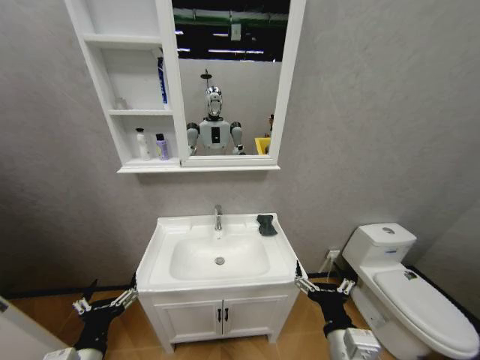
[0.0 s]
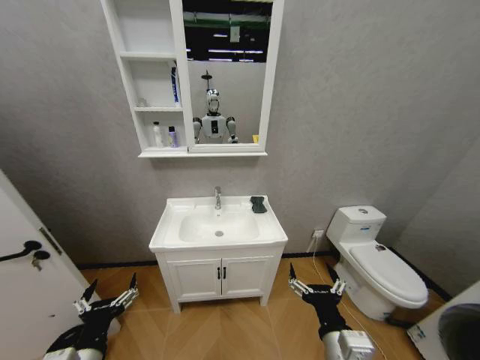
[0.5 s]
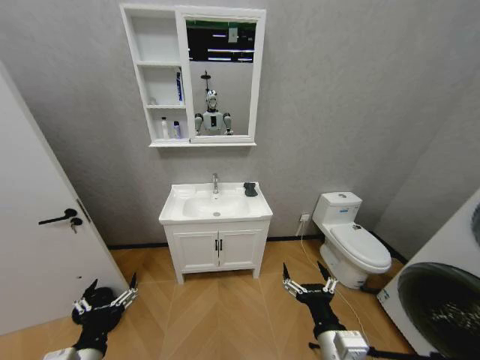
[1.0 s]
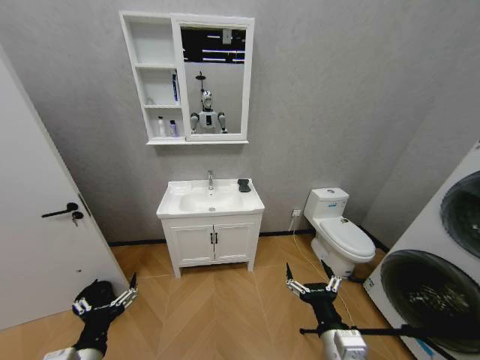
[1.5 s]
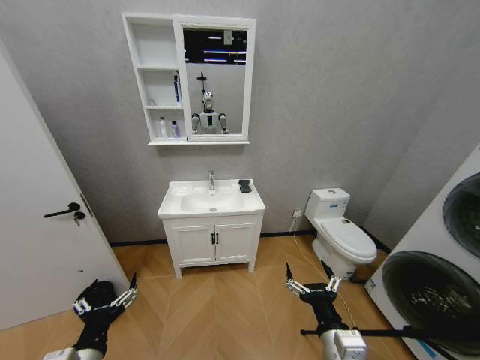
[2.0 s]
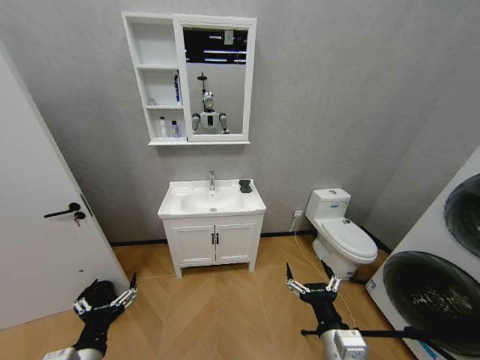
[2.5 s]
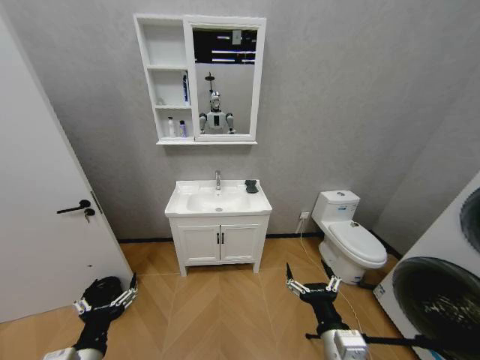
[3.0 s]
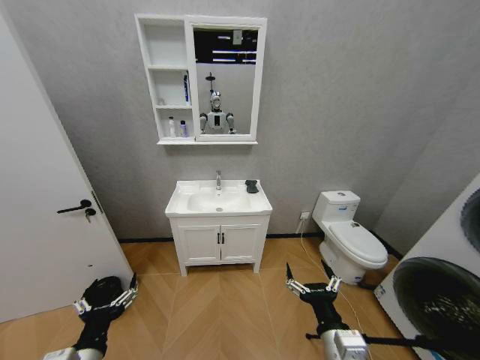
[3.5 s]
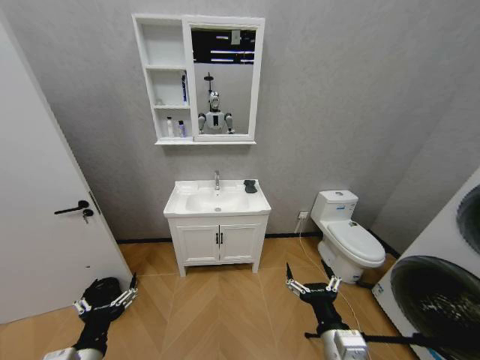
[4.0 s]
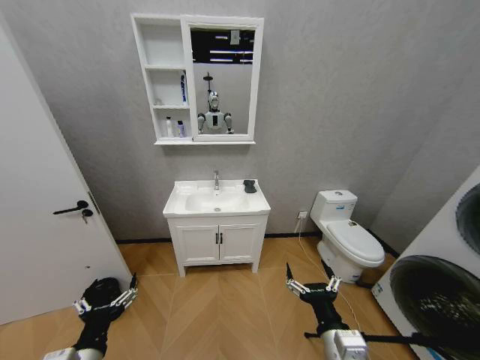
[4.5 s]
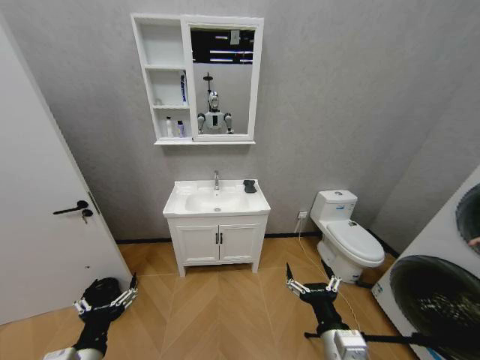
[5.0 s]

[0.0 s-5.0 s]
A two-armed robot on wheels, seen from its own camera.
Task of the whole recording: Move facial cleanser and shampoo from washbasin to cabinet, then wipe washbasin with towel.
2.5 to 5.0 s: The two grippers keep their place.

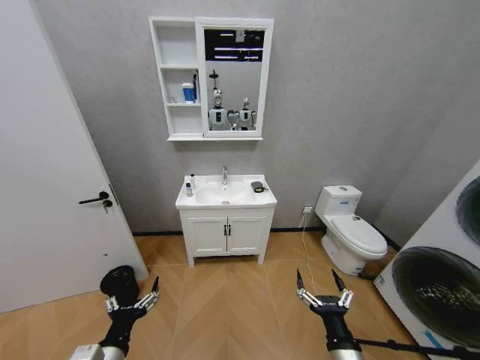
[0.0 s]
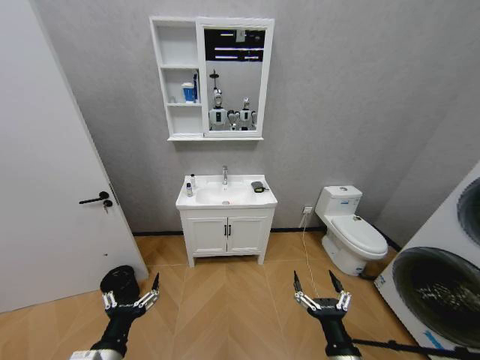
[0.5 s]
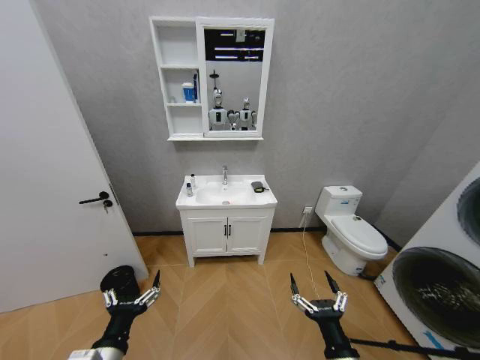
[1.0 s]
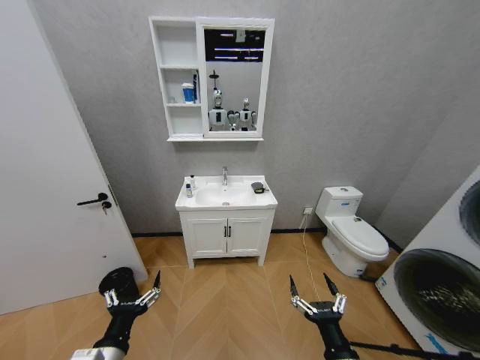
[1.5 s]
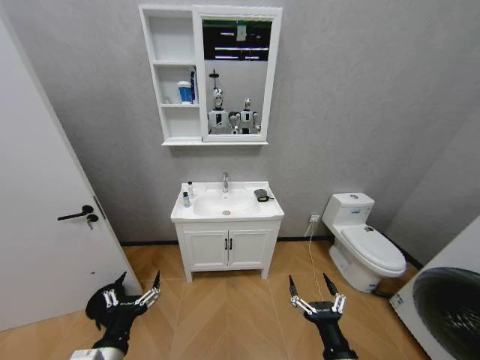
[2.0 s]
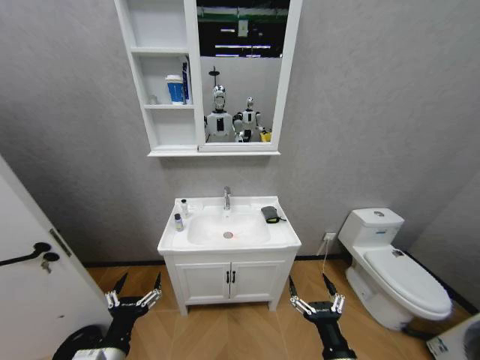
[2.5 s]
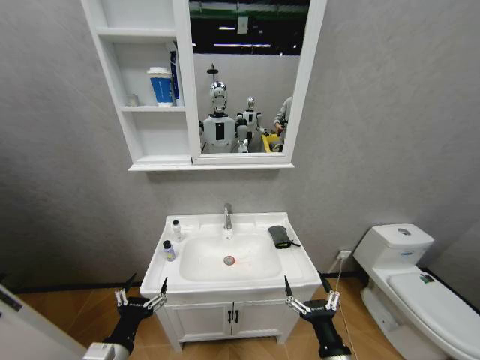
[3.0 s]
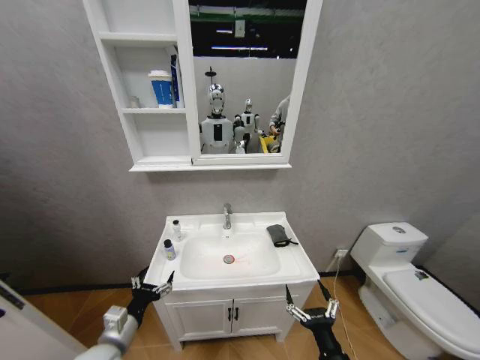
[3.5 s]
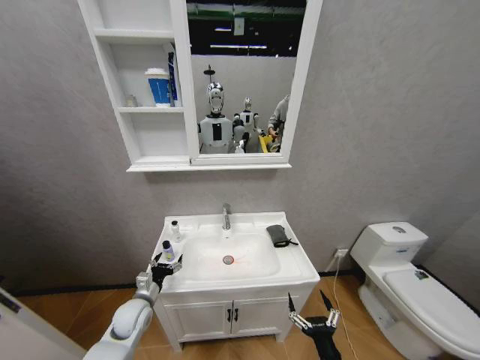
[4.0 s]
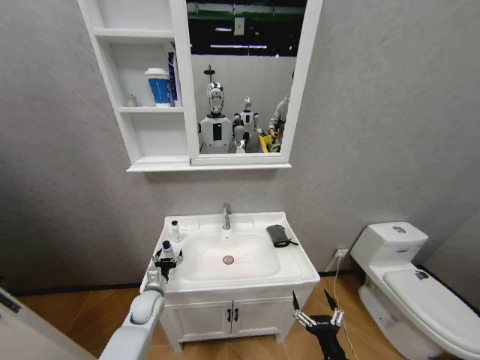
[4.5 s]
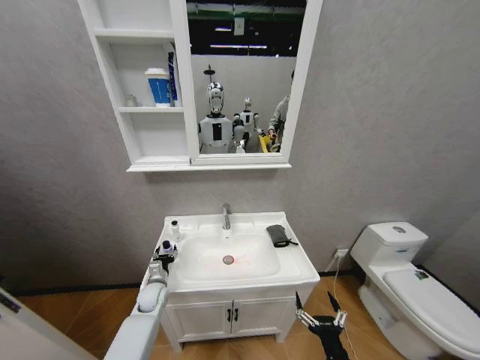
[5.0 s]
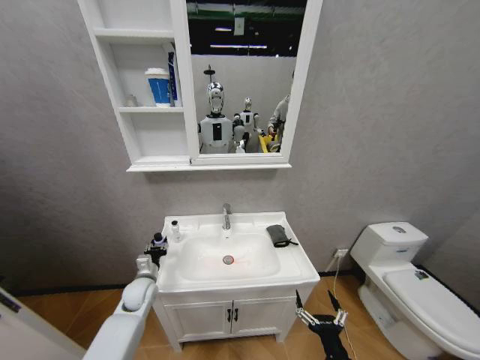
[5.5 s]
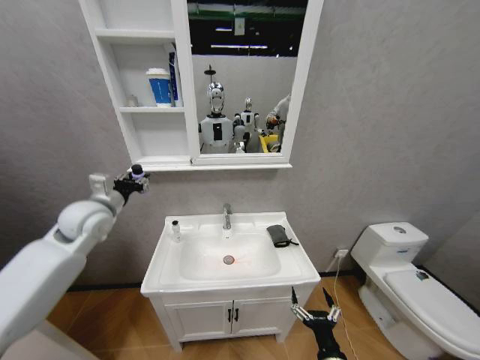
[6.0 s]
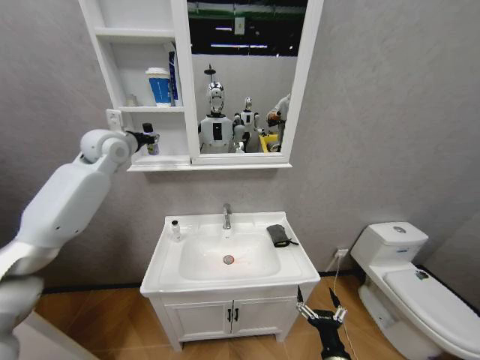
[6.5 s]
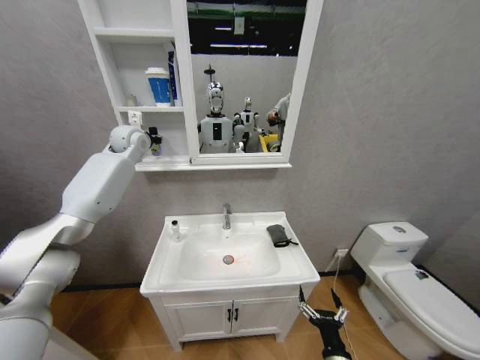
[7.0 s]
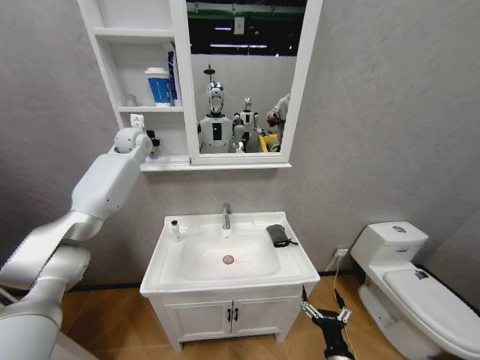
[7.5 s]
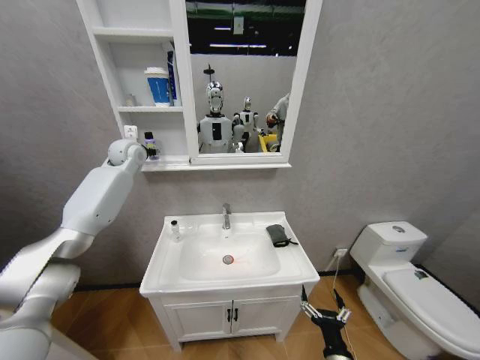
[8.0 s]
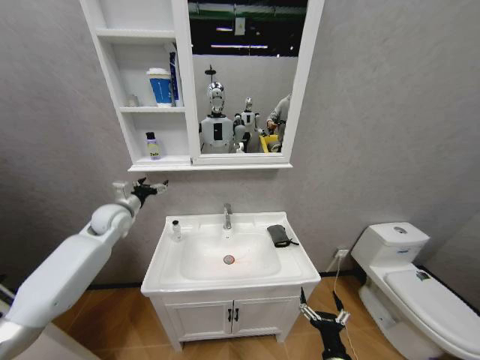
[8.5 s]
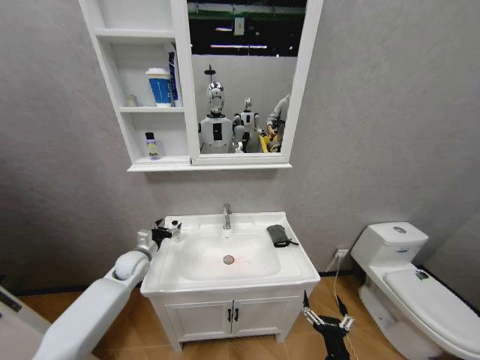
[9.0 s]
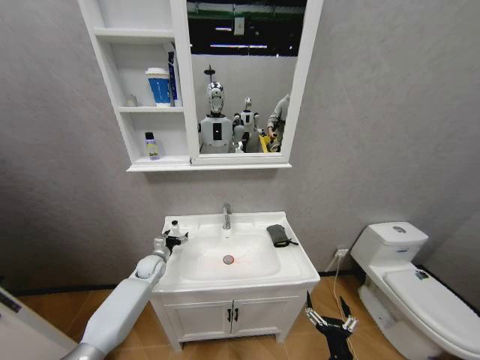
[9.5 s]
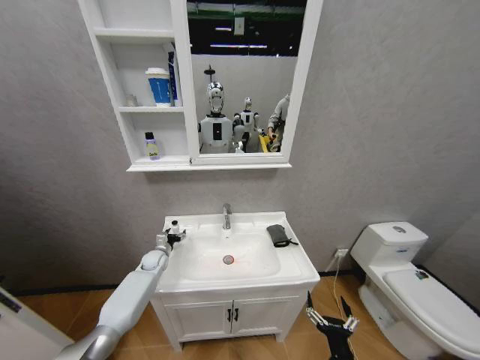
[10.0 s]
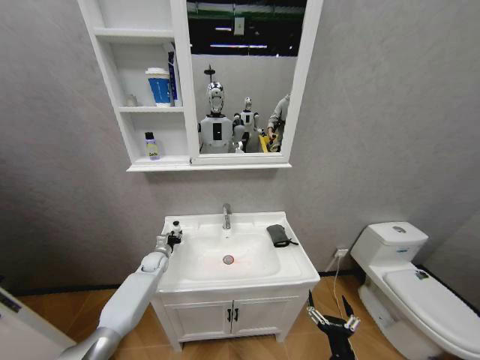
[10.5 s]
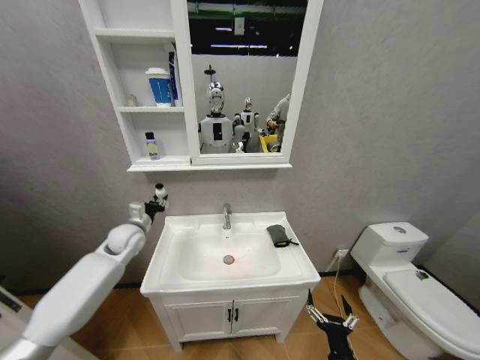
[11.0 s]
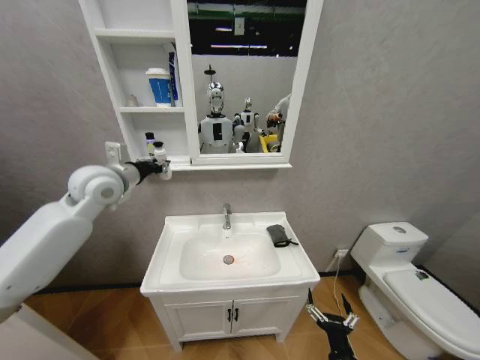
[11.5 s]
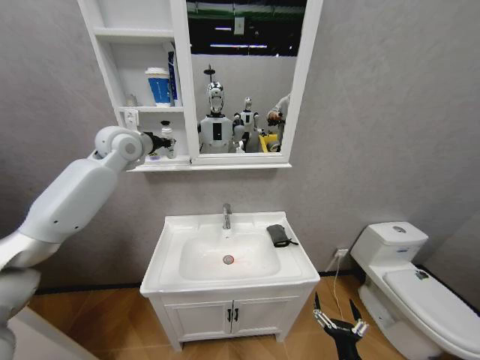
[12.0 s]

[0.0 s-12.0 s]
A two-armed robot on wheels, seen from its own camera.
Task of the whole recording: Move facial cleanser and shampoo from washbasin to cabinet, then wipe washbasin with towel.
2.0 to 4.0 s: The right gripper heads downward, covering roughly 5 cm. The left gripper goes roughly 25 cm forward and downward.
4.0 to 6.0 s: The left gripper goes some 30 cm upward, and closes.
6.0 to 8.0 s: The left gripper heads forward and upward, covering approximately 25 cm, and opens.
8.0 to 10.0 s: The left gripper shifts about 40 cm downward.
10.0 to 12.0 s: The left gripper travels upward by approximately 50 cm, and closes.

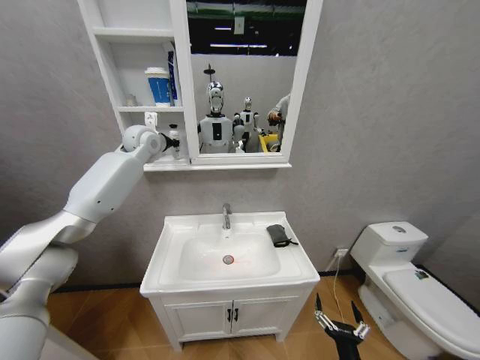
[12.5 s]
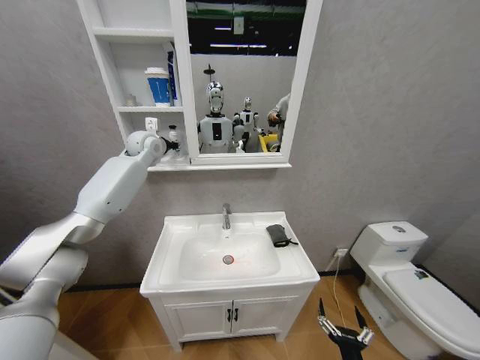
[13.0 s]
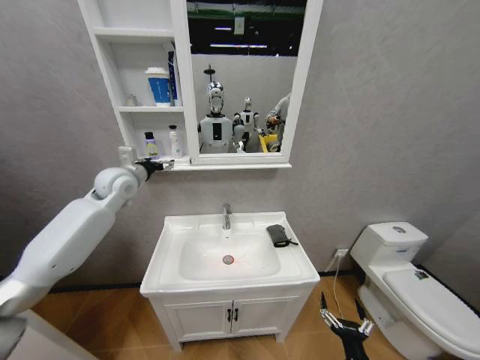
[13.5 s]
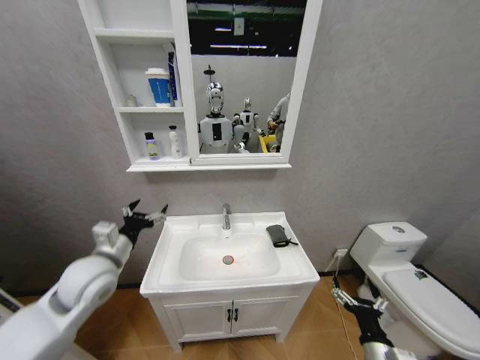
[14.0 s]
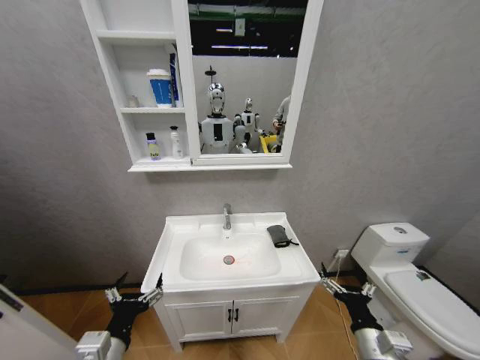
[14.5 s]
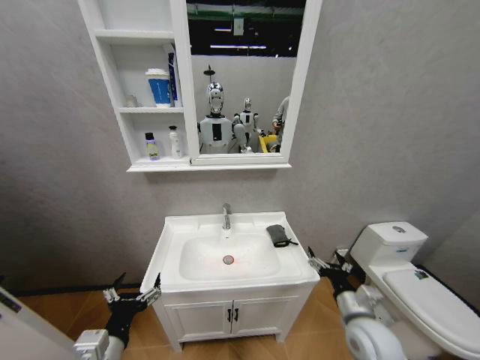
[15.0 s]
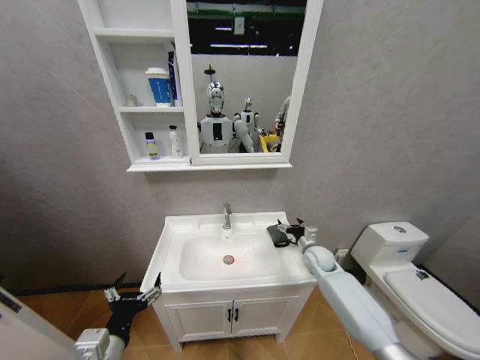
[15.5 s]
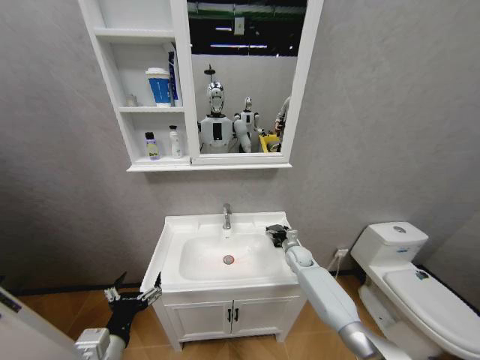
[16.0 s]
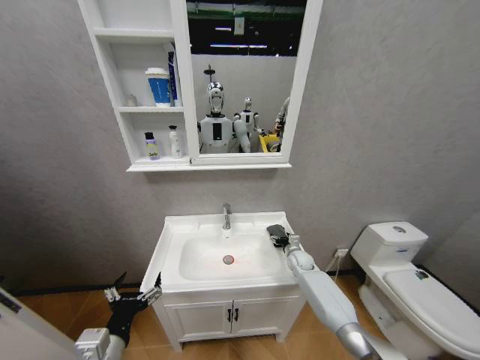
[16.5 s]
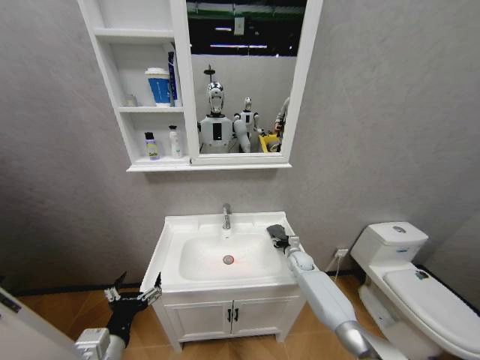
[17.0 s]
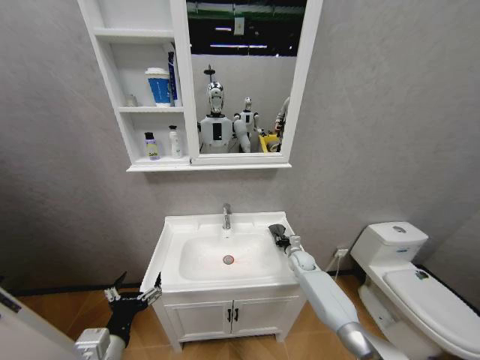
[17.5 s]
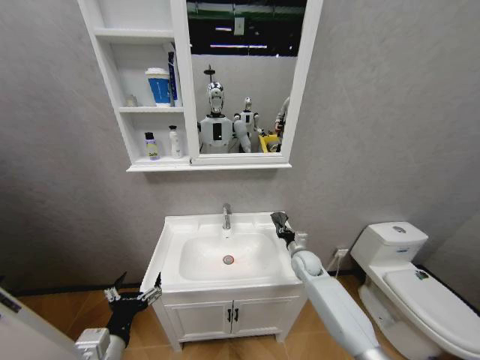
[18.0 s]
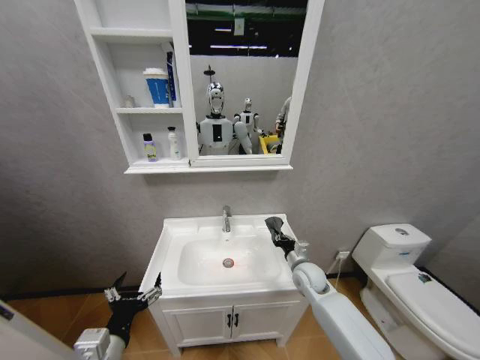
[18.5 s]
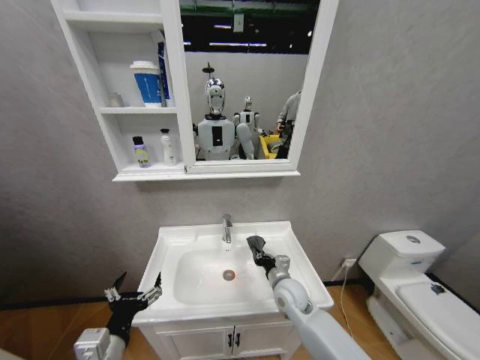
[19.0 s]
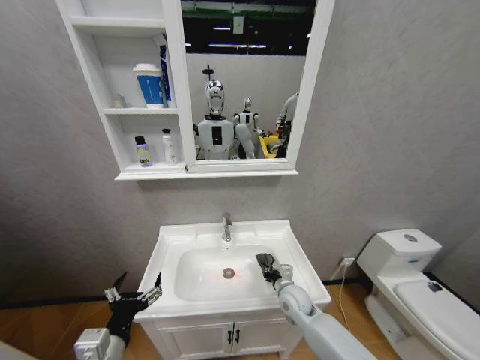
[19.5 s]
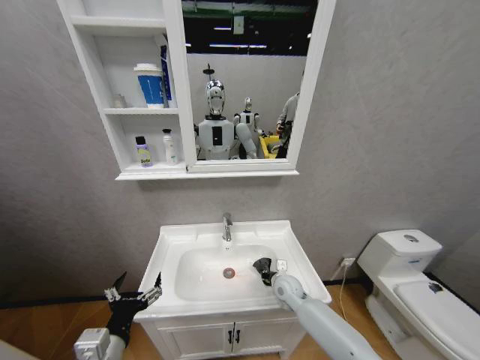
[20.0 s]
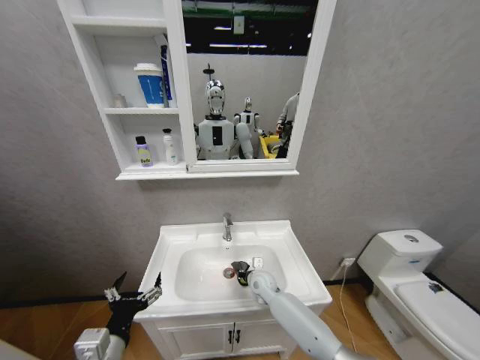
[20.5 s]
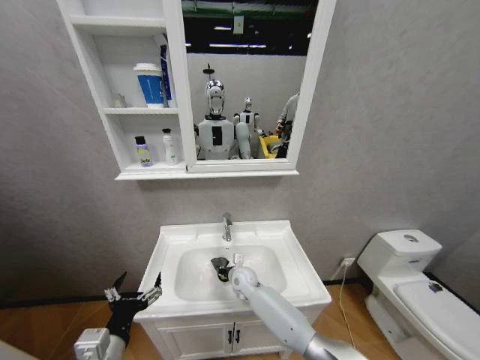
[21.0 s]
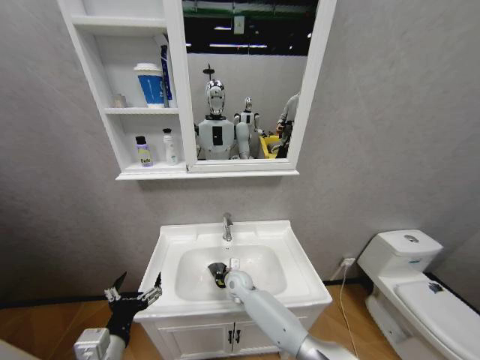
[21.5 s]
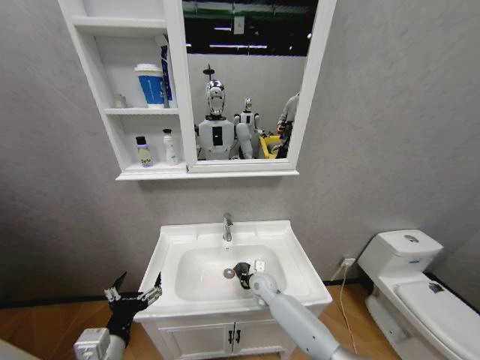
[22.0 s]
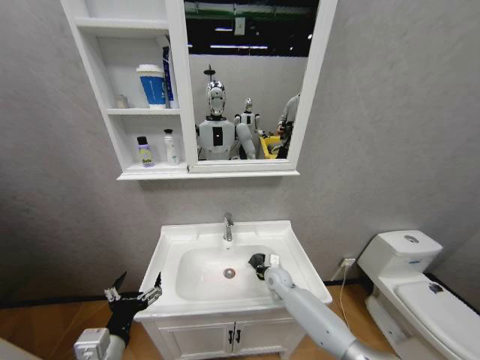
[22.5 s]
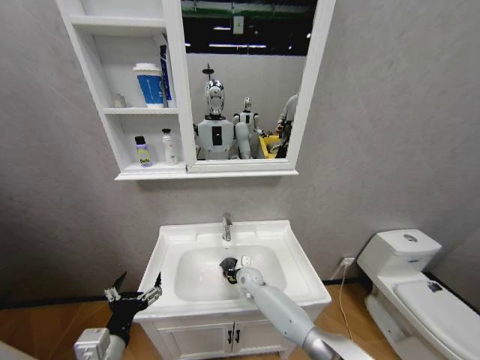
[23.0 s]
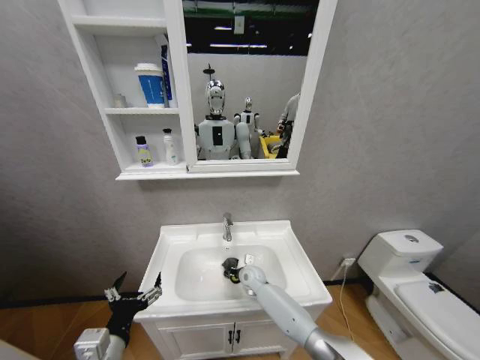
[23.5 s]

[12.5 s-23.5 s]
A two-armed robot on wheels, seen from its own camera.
Task of the whole recording: Move facial cleanser and shampoo from washbasin to cabinet, then wipe washbasin with towel.
12.5 to 14.5 s: The right gripper is displaced upward and forward by about 10 cm, while the left gripper travels backward and downward by some 60 cm, and opens its fingers.
14.5 to 16.0 s: The right gripper travels forward by some 35 cm.
16.0 to 18.0 s: The right gripper goes approximately 5 cm backward, and closes up.
18.0 to 20.0 s: The right gripper shifts approximately 10 cm to the left and backward.
20.0 to 21.5 s: The right gripper shifts some 15 cm to the left.
21.5 to 23.5 s: The right gripper moves to the right, about 5 cm.
